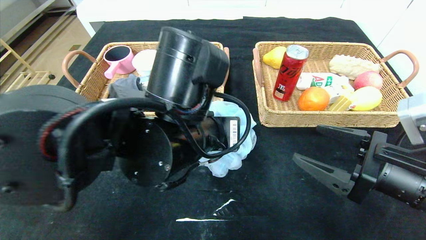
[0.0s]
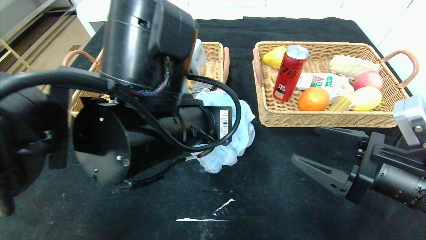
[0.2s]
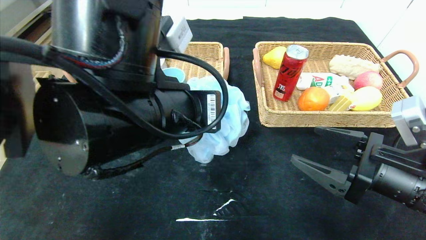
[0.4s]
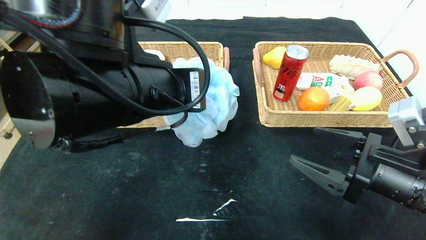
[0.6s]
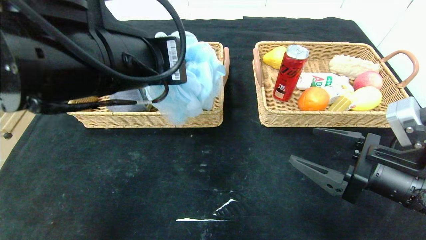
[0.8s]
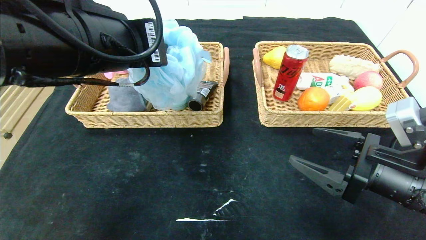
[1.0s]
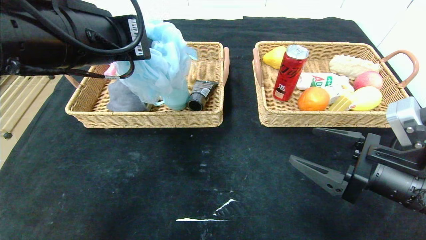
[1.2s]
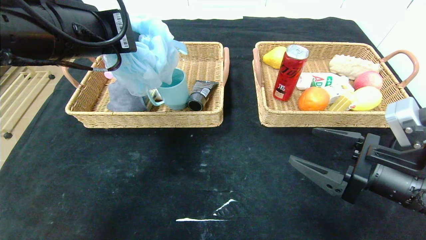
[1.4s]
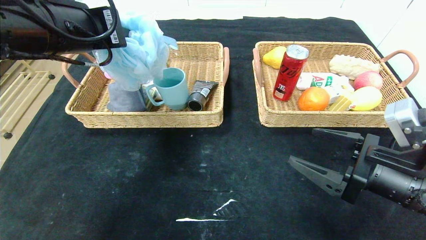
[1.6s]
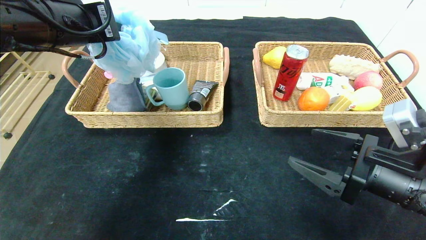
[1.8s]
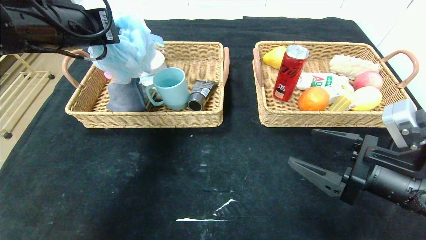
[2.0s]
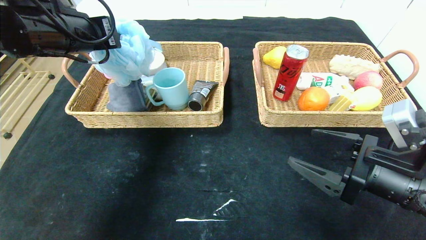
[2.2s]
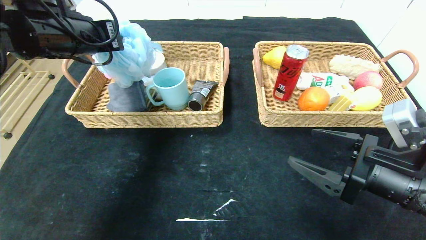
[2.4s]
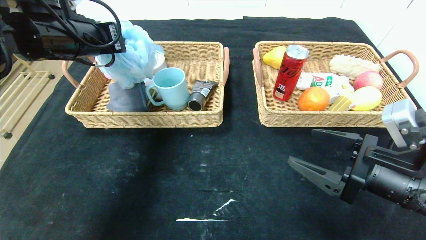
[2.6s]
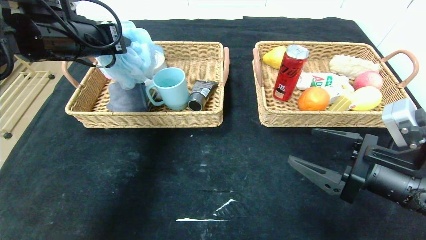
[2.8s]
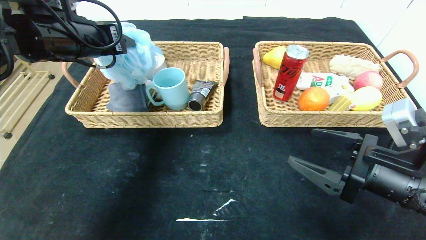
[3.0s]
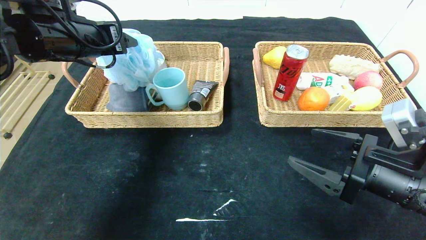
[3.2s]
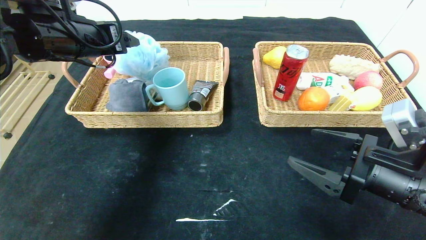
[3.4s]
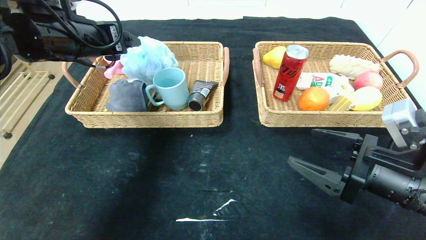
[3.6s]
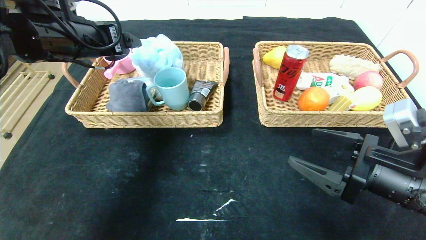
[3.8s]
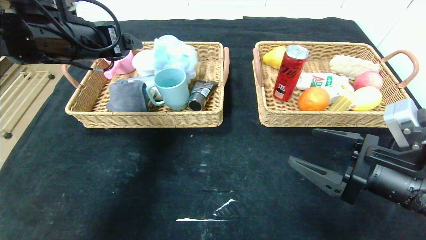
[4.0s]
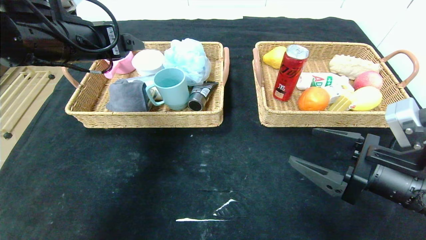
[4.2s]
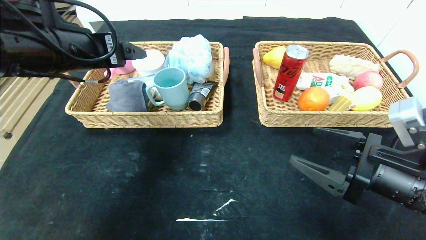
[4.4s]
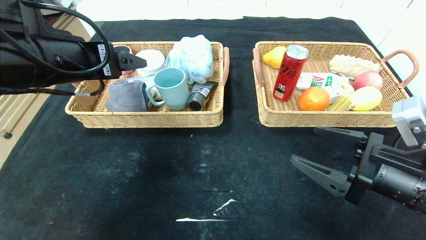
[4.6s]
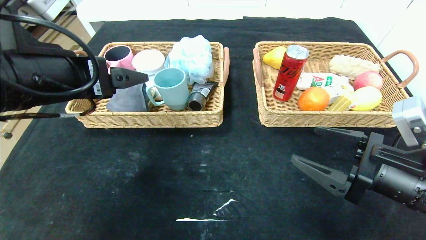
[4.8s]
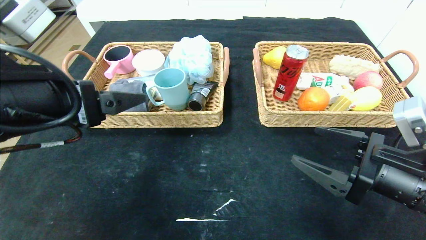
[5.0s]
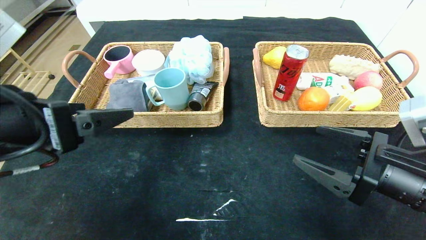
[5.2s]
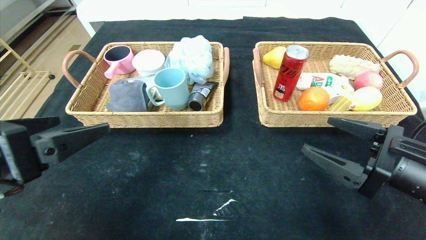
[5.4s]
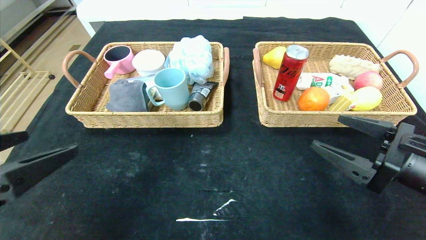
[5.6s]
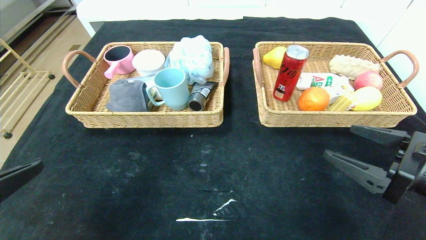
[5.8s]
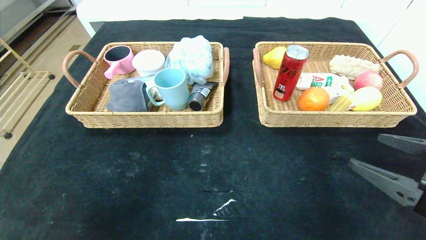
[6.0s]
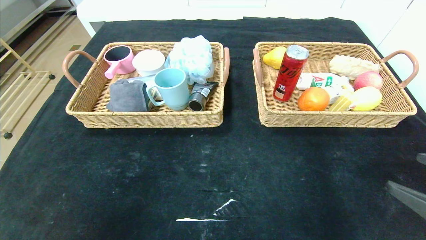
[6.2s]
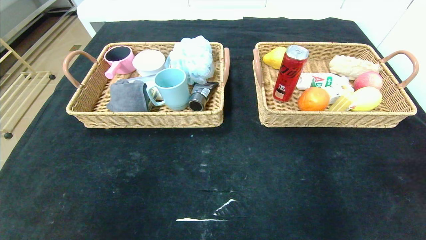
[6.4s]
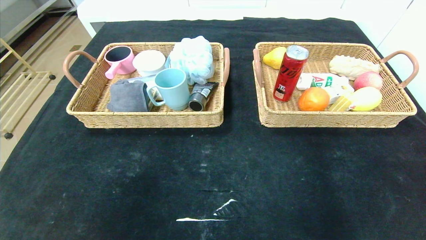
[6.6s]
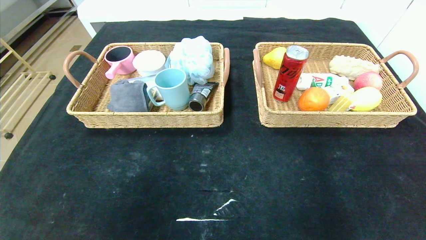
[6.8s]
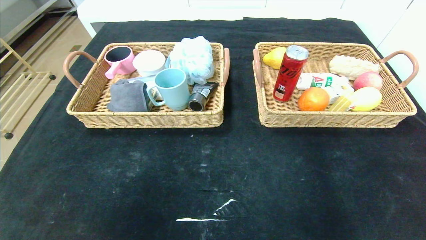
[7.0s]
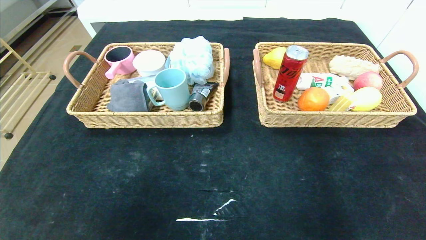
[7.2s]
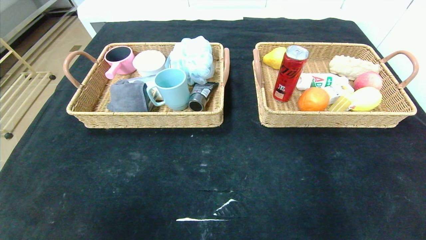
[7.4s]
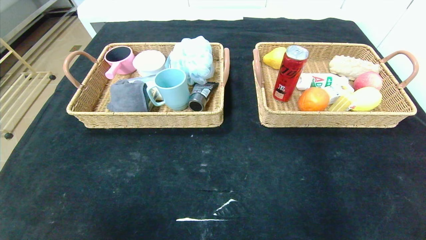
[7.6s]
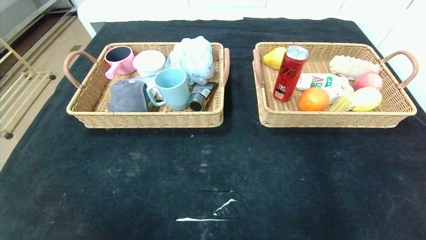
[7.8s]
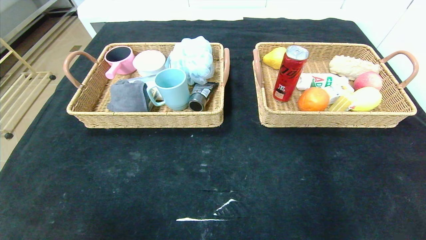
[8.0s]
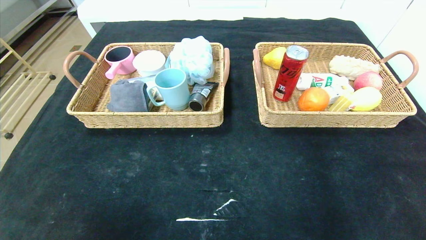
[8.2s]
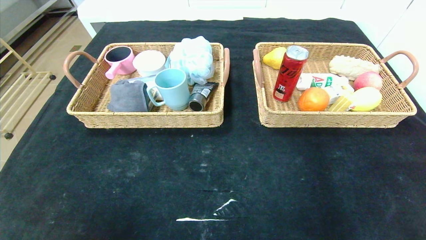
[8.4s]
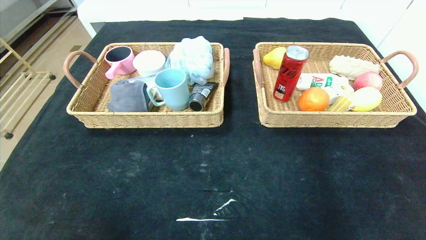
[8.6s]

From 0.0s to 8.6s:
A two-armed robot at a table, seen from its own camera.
Step, from 0.0s to 3.4s: Grasp the bath ball and put it in the left basket.
From 0.0s to 1.4s: The left gripper goes about 15 cm to the left and upward.
From 1.4s to 2.8s: The left gripper shifts some 10 cm forward and to the left.
From 2.8s to 4.4s: The left gripper travels backward by approximately 5 cm, and opens up.
From 4.4s to 5.8s: The left gripper travels backward by some 20 cm. The right gripper shifts by about 5 cm.
From 5.8s to 7.2s: Both grippers move backward, some 15 cm.

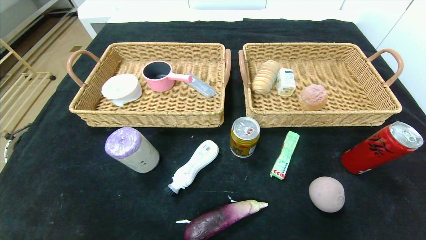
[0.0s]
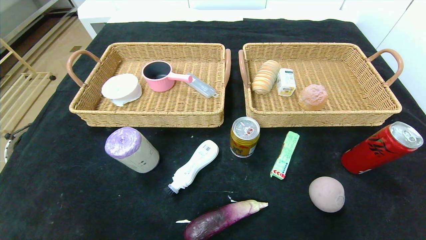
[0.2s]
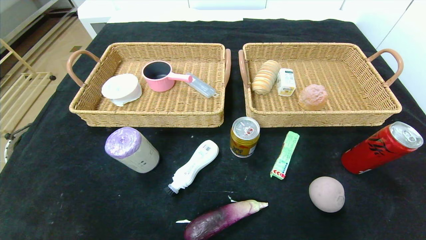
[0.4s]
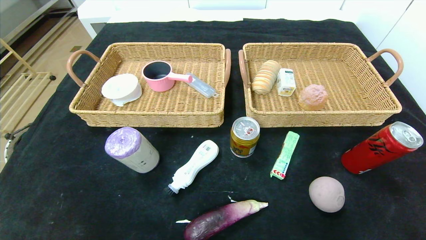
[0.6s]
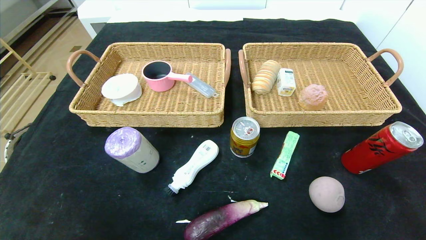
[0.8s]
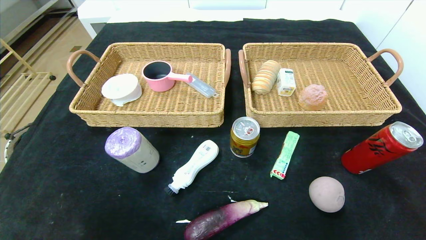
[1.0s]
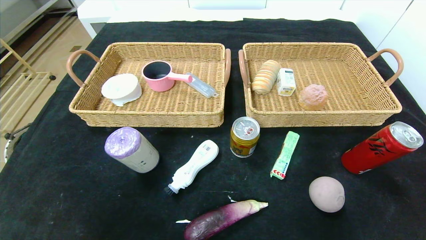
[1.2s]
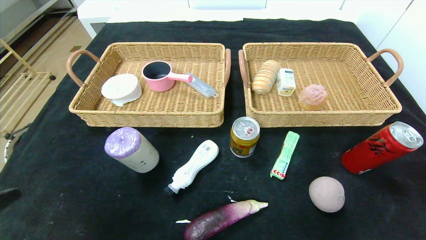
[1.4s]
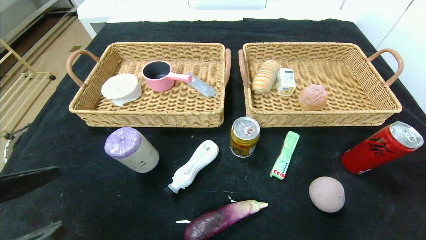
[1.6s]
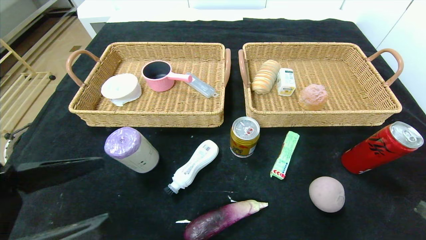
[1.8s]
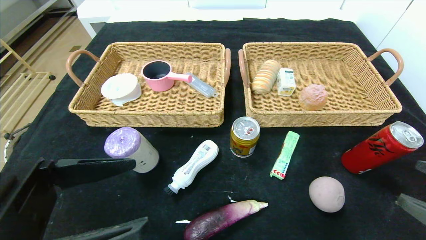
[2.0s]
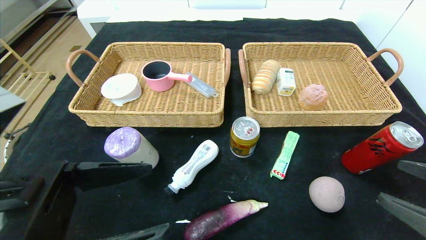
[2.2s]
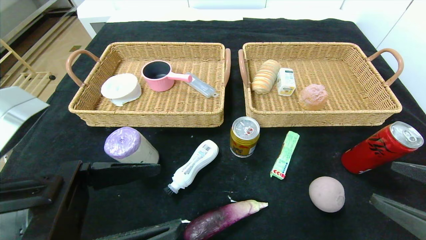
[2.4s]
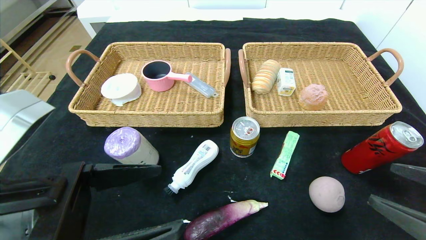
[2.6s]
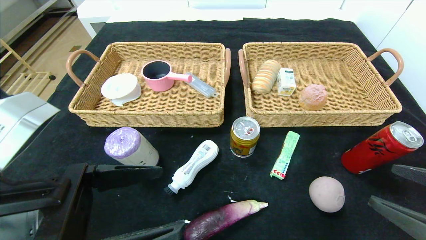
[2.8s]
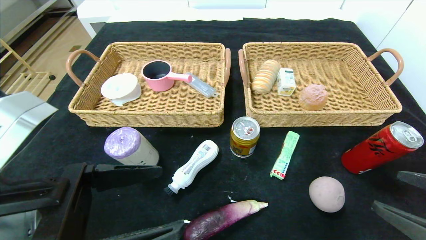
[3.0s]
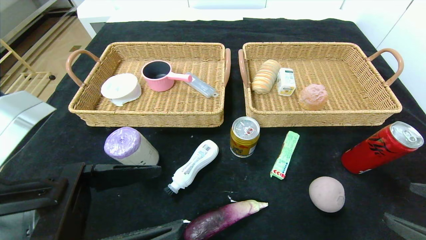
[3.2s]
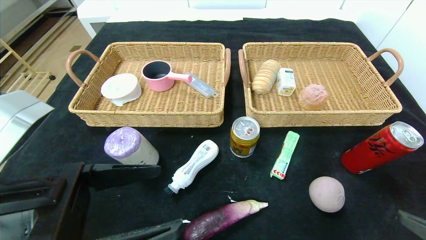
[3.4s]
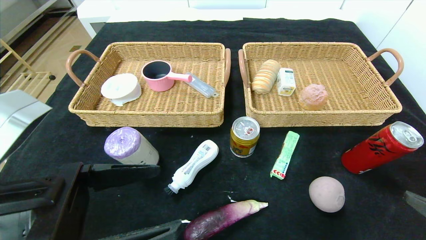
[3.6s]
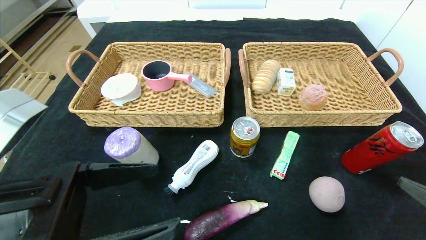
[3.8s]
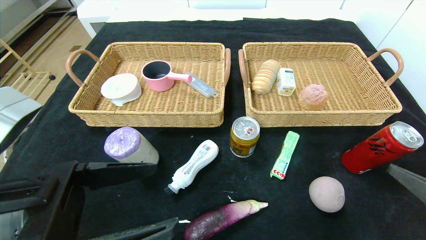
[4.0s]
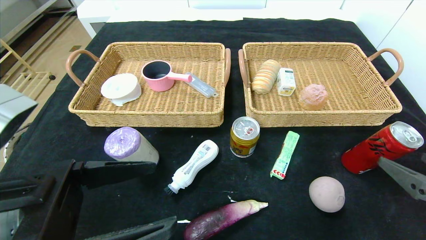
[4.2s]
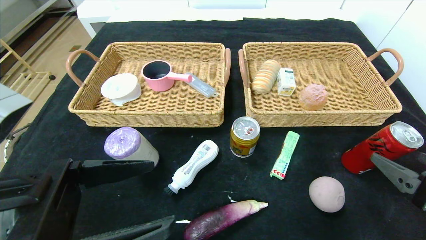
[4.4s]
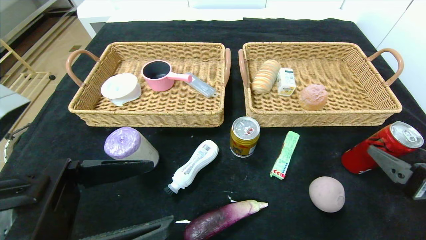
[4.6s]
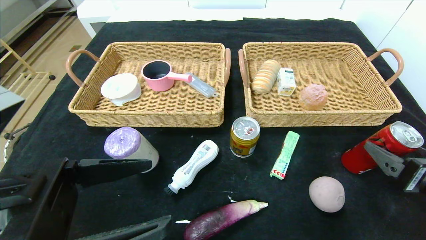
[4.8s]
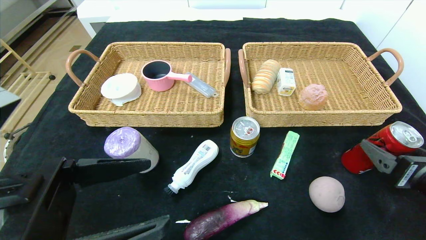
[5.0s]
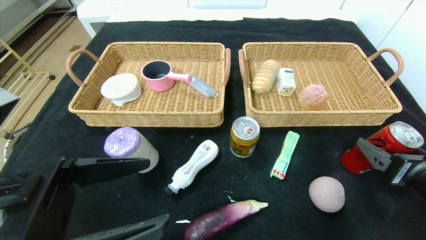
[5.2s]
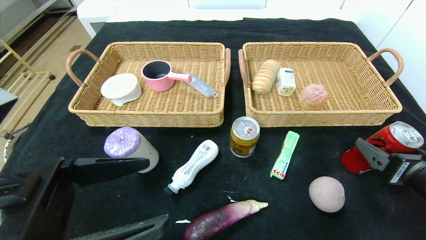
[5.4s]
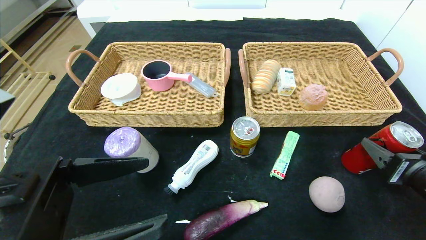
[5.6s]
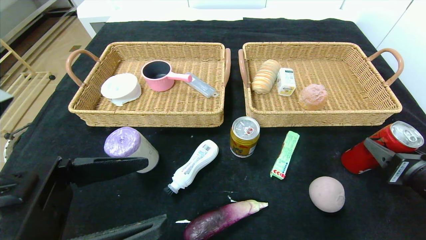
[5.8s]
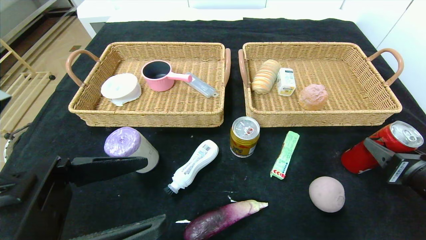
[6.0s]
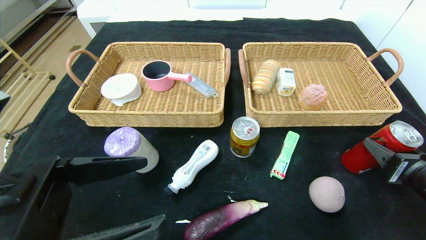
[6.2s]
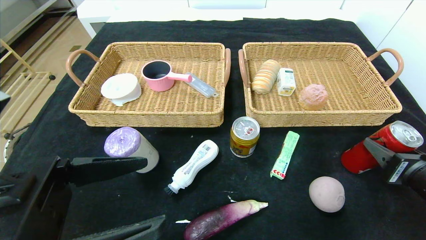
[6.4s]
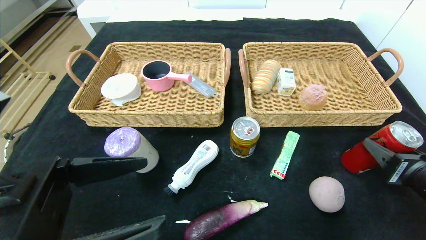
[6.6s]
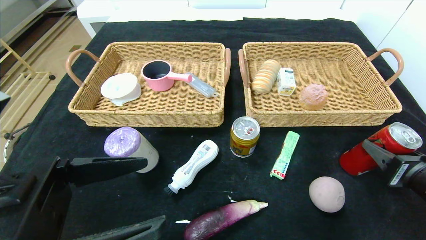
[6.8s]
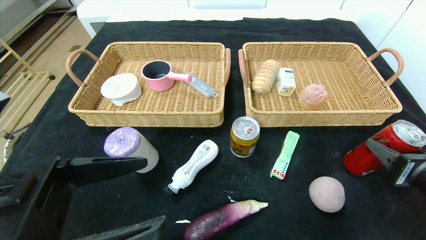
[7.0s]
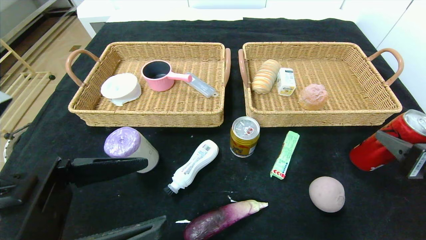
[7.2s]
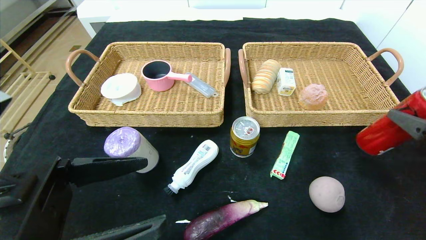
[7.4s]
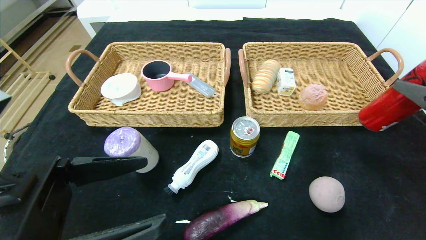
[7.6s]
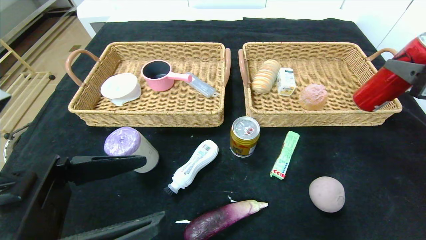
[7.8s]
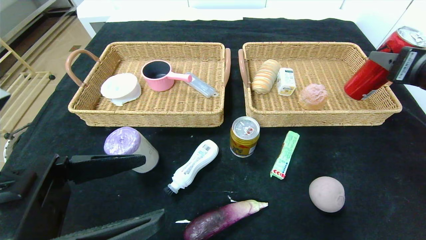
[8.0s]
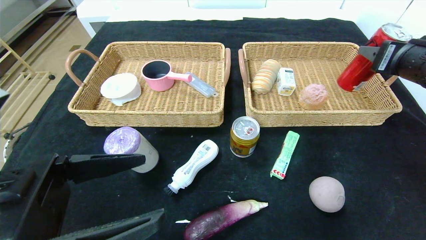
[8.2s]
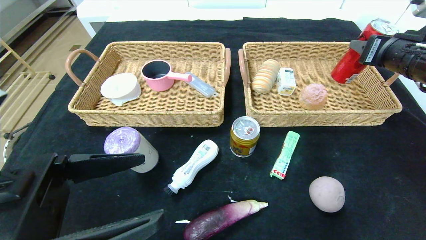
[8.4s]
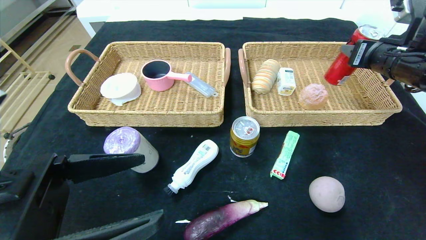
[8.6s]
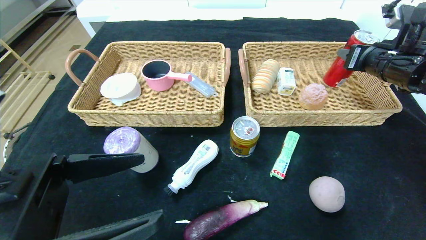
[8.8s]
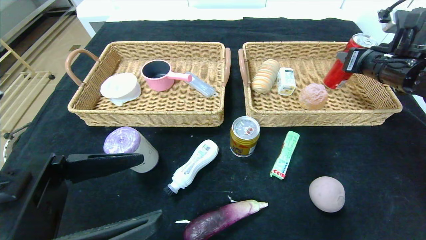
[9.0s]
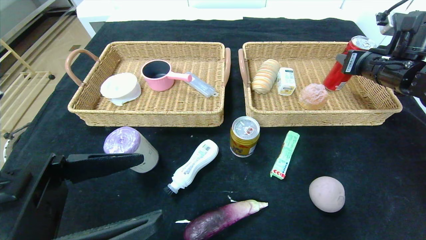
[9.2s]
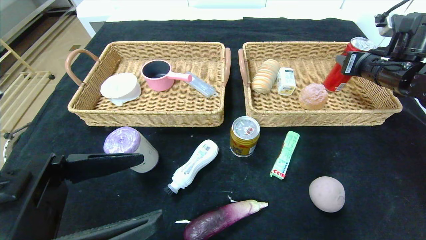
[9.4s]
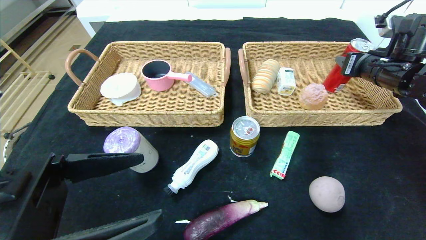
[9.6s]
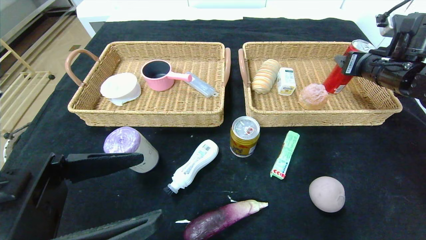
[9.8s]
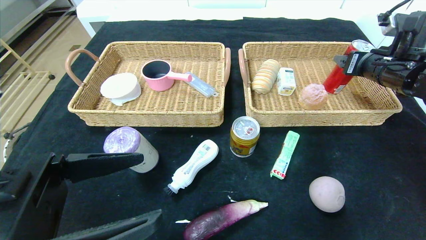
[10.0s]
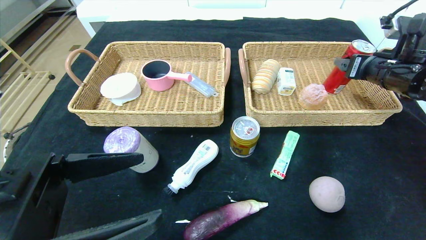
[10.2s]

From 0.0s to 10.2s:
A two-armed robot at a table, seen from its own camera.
From 1.4s to 3.0s: The right gripper moves forward, approximately 5 cm. Meanwhile the left gripper is displaced to the right and forward by some 10 cm.
From 4.4s to 5.8s: The right gripper moves approximately 5 cm, and closes up.
From 5.8s to 7.2s: The grippers move only a little.
From 7.2s to 8.8s: The right gripper travels forward and upward by roughly 20 cm.
From 8.8s to 10.2s: The grippers make only small movements.
